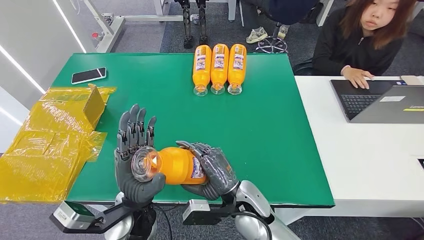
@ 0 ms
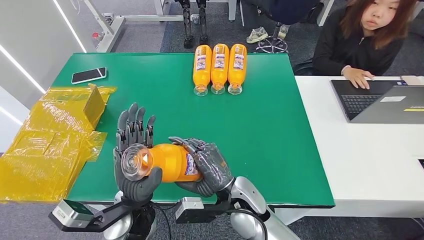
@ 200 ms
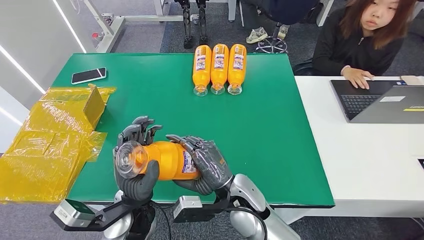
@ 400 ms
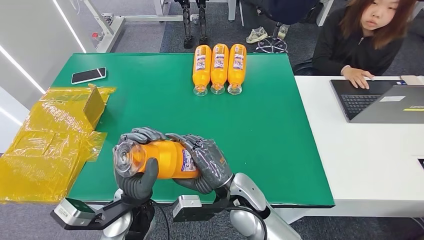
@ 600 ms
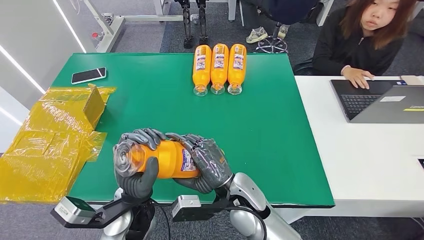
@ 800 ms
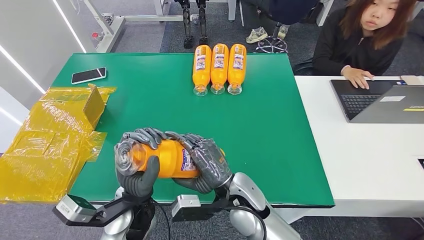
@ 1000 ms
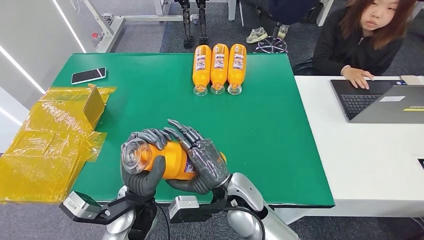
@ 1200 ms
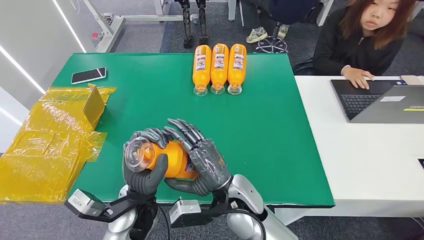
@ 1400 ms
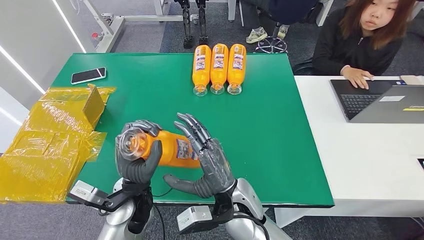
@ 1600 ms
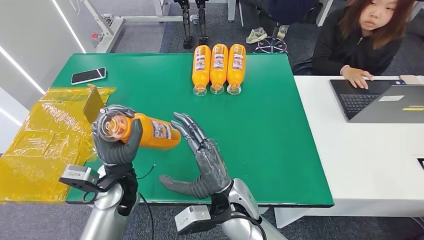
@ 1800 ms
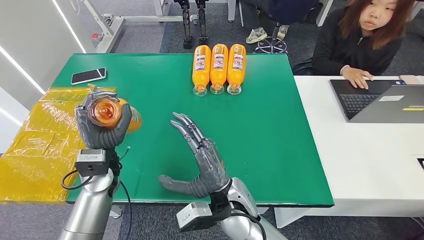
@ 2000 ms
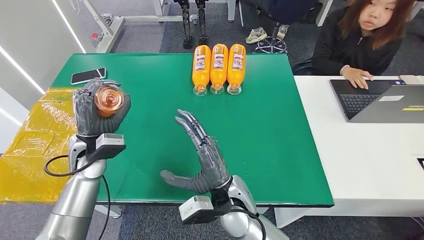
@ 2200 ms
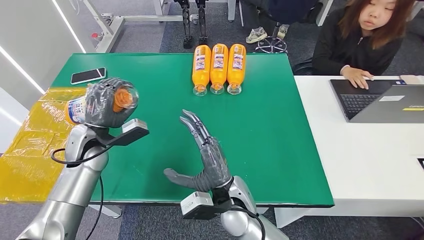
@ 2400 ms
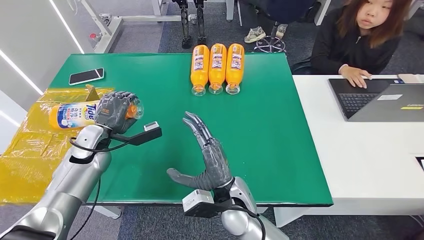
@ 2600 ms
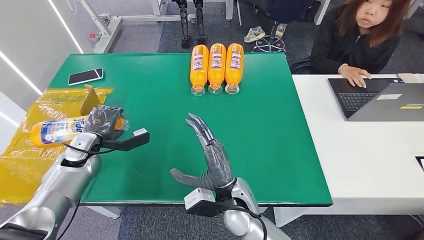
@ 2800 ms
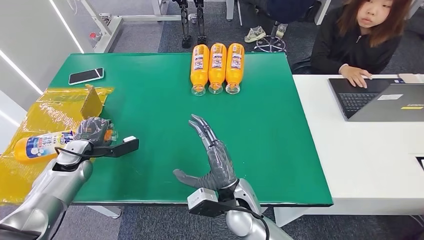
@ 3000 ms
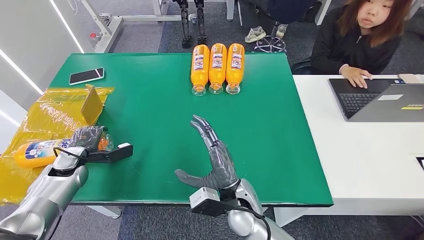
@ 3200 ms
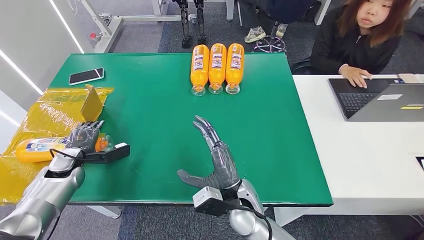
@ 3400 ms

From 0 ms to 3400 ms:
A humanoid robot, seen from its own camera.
Step, from 0 ms to 3400 ms: Turn the bottle to the front side.
From 0 ms to 1600 ms: The hands move only a little.
